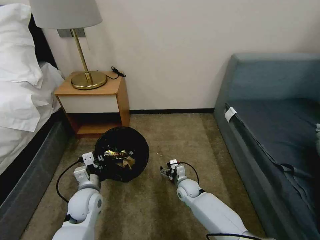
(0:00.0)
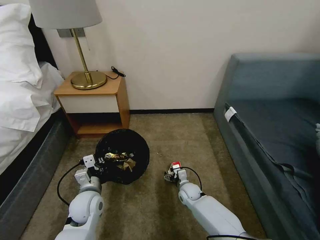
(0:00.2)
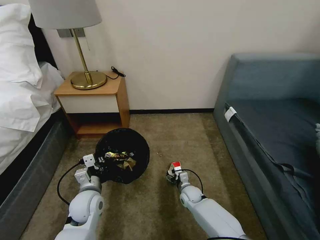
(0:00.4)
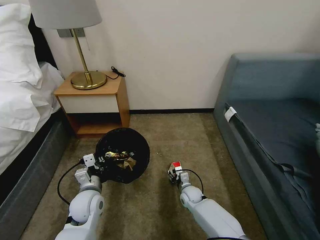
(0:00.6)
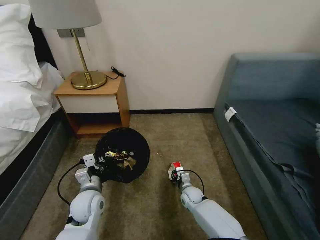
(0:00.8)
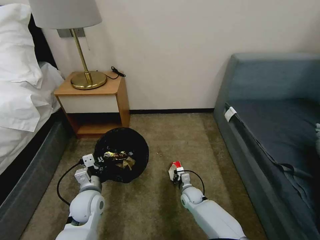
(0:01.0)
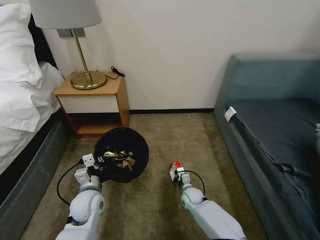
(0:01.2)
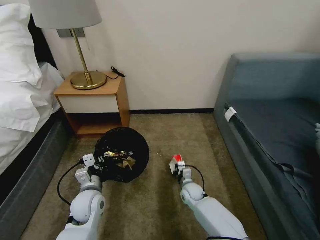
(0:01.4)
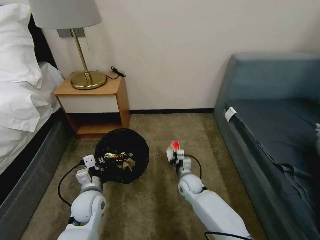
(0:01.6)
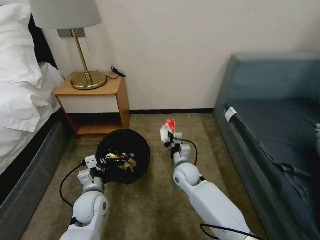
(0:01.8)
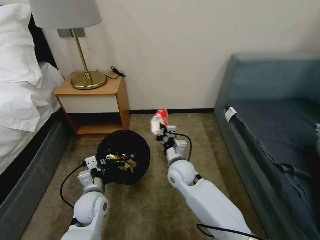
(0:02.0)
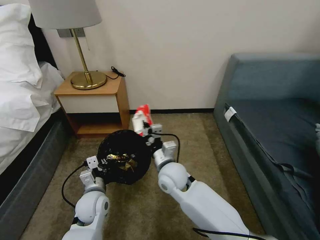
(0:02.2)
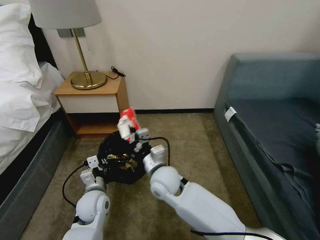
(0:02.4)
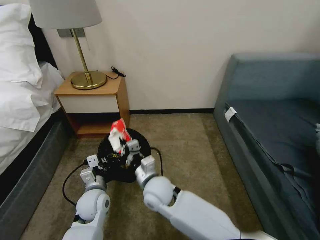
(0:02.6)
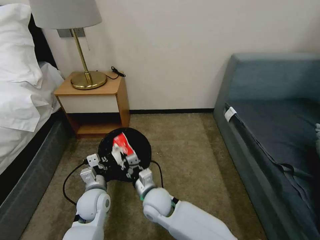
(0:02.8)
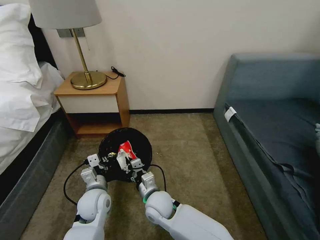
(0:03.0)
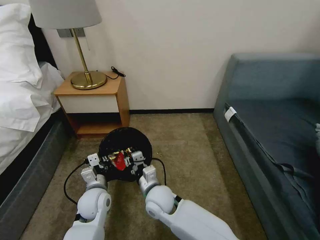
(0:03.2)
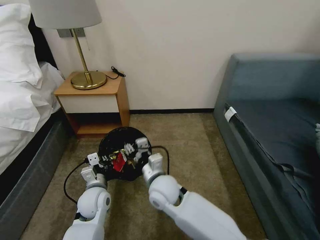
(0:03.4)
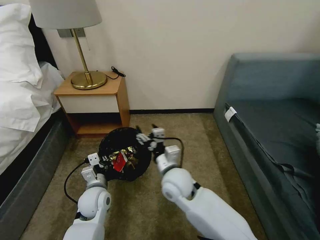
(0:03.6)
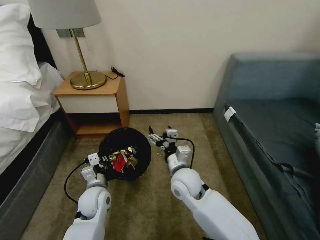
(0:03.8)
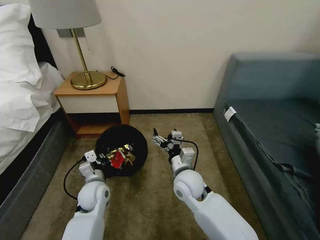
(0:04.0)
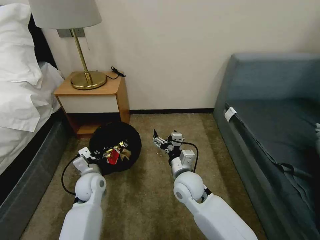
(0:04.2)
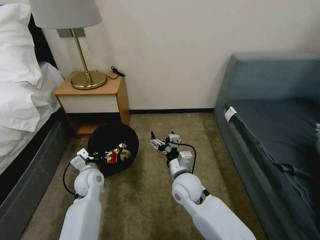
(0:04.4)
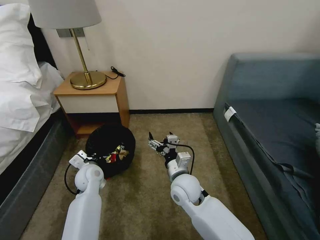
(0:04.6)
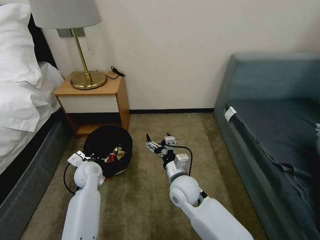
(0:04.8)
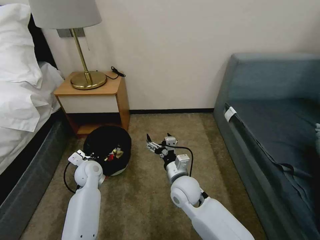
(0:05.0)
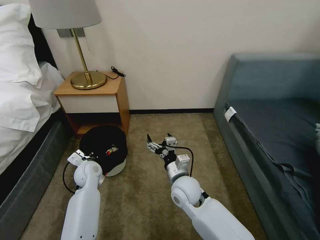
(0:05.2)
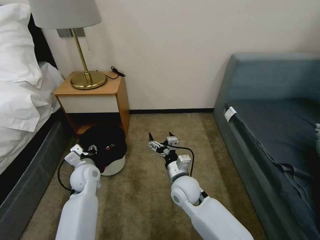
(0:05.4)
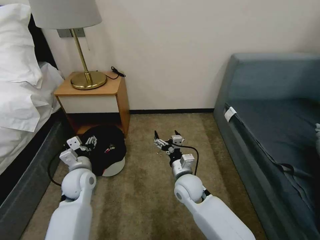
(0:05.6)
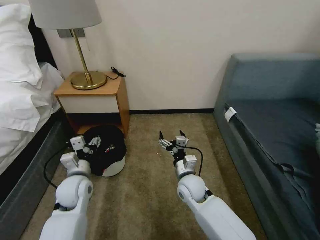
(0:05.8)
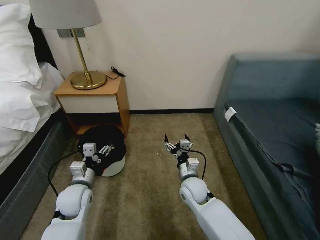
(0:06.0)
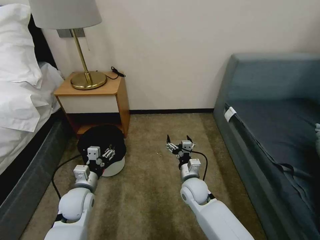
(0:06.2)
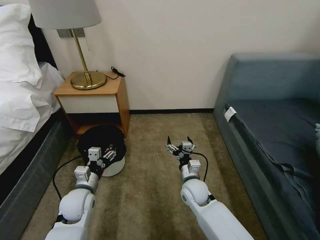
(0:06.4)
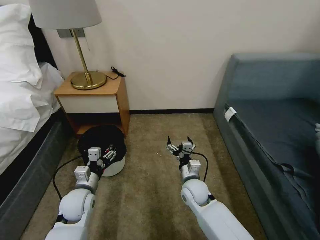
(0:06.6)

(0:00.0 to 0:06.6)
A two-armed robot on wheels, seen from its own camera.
Task of the whole recording: Pick up the trash bin, then pick up the garbage on the floor and place it into the trash bin.
0:00.0 - 0:01.6: The right gripper closes up.
0:01.6 - 0:03.2: The right gripper travels to the left, backward and upward by approximately 20 cm.
0:03.2 - 0:05.0: The right gripper shifts approximately 10 cm to the right, and opens its fingers, while the left gripper shifts approximately 10 cm forward and to the left.
0:05.0 - 0:06.6: The right gripper travels downward by roughly 5 cm; the left gripper travels backward by some 10 cm, and opens up.

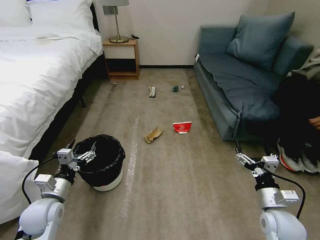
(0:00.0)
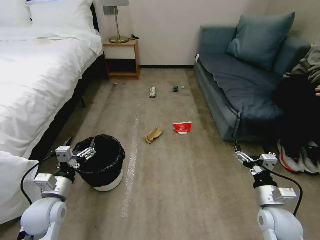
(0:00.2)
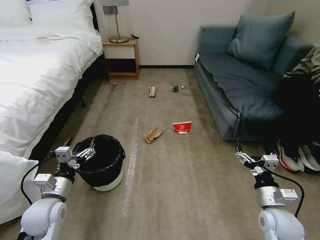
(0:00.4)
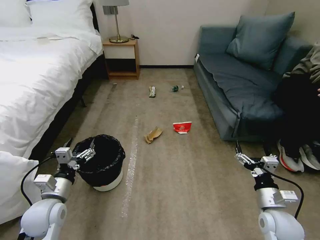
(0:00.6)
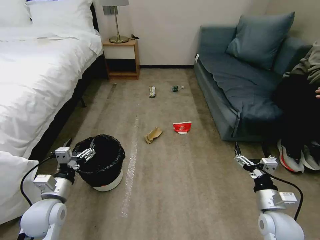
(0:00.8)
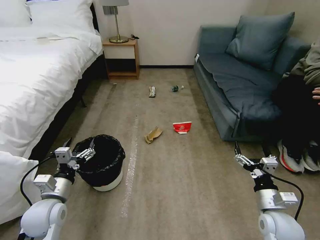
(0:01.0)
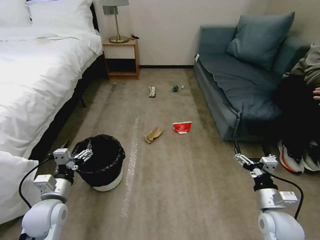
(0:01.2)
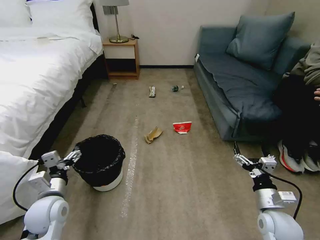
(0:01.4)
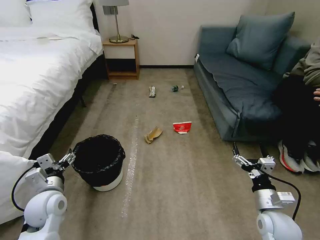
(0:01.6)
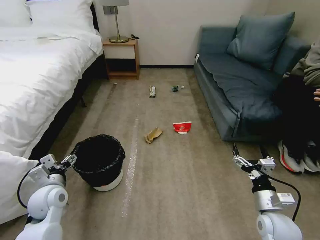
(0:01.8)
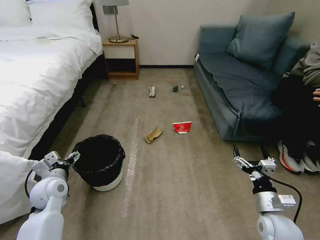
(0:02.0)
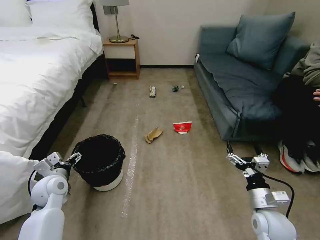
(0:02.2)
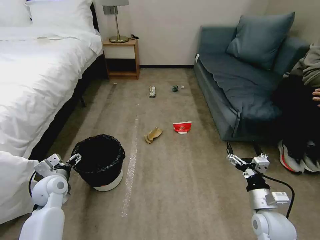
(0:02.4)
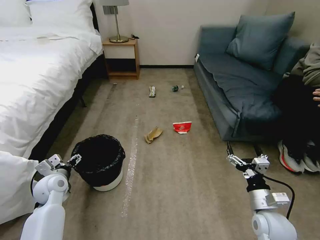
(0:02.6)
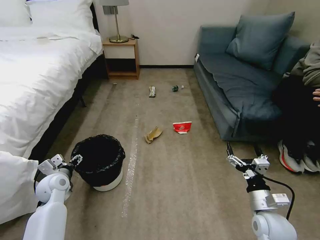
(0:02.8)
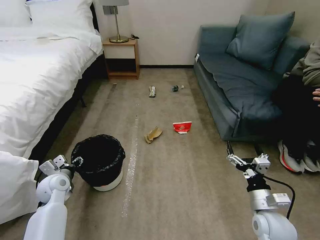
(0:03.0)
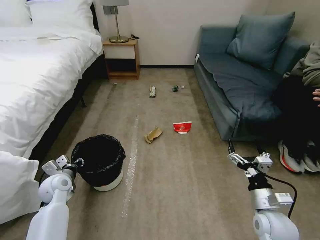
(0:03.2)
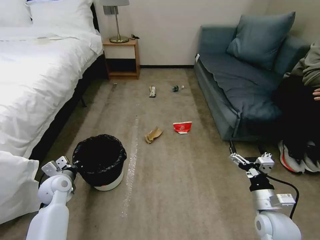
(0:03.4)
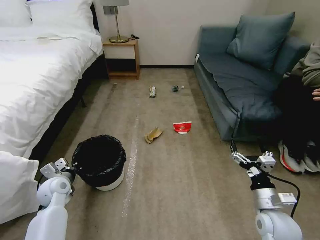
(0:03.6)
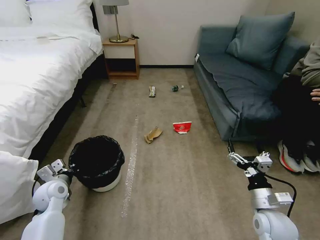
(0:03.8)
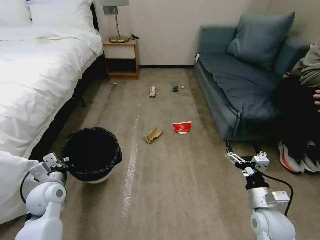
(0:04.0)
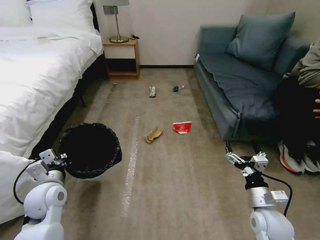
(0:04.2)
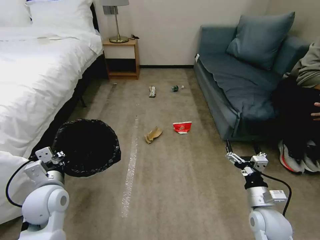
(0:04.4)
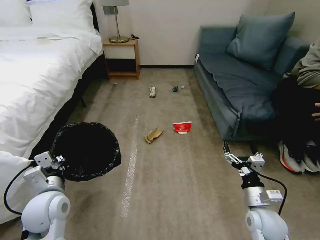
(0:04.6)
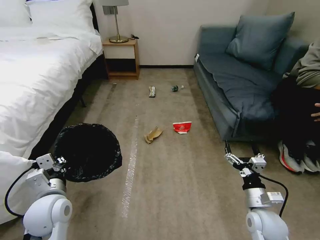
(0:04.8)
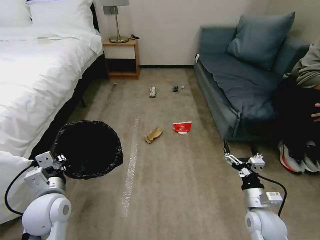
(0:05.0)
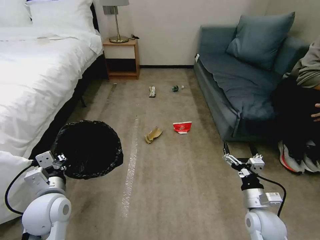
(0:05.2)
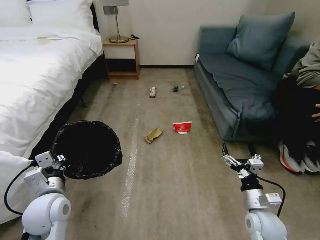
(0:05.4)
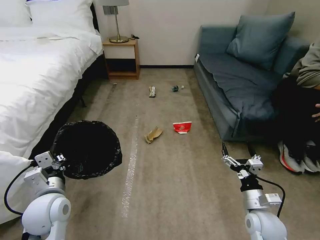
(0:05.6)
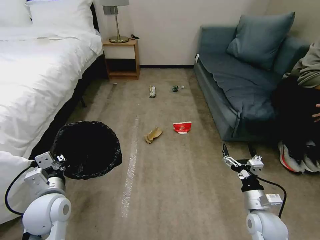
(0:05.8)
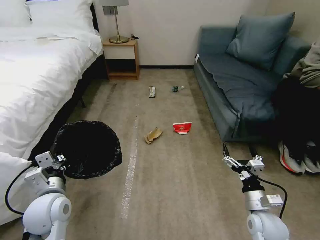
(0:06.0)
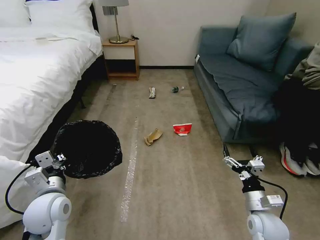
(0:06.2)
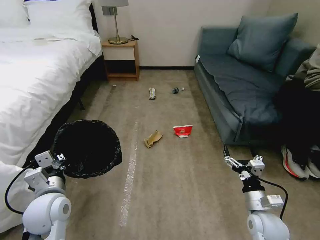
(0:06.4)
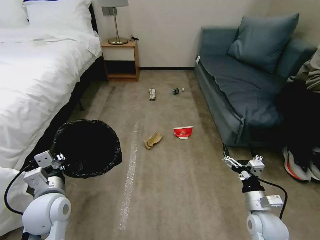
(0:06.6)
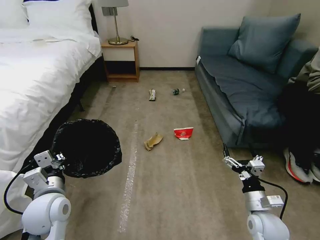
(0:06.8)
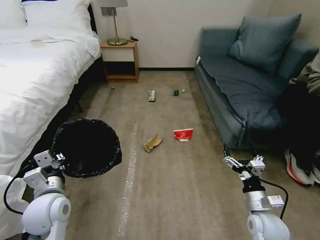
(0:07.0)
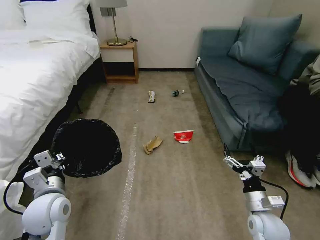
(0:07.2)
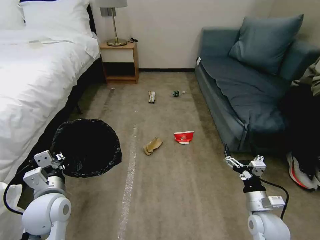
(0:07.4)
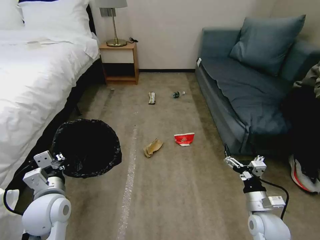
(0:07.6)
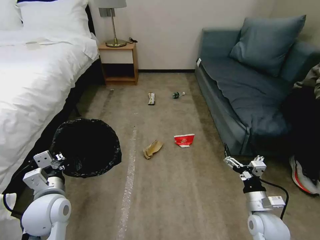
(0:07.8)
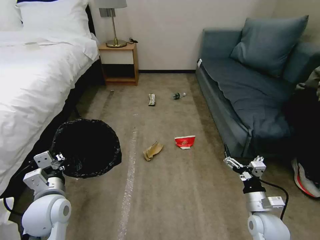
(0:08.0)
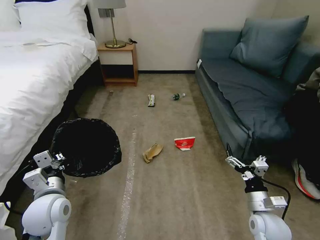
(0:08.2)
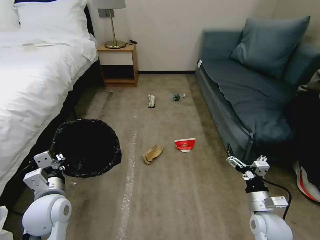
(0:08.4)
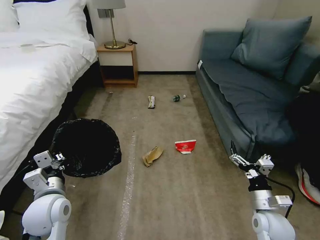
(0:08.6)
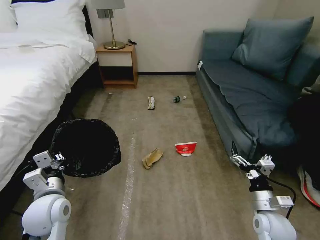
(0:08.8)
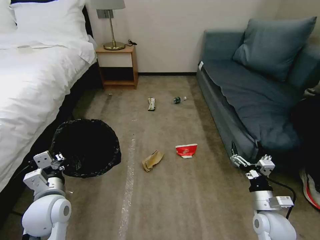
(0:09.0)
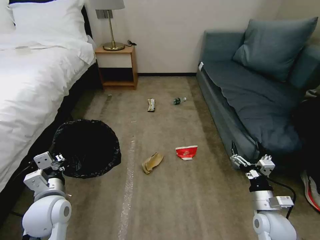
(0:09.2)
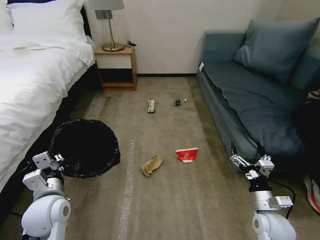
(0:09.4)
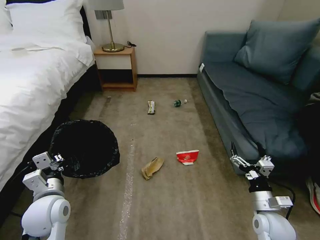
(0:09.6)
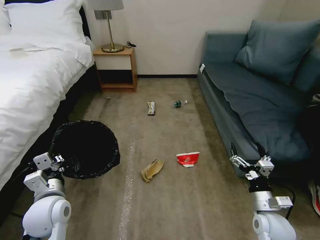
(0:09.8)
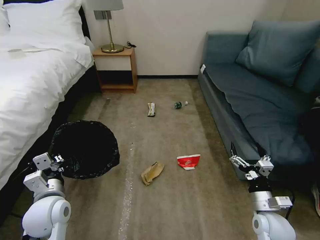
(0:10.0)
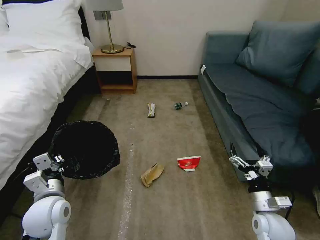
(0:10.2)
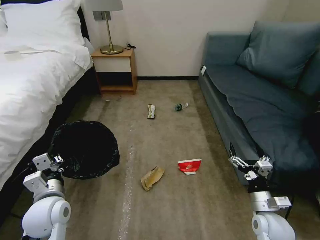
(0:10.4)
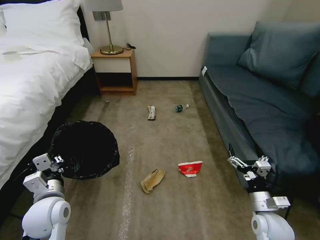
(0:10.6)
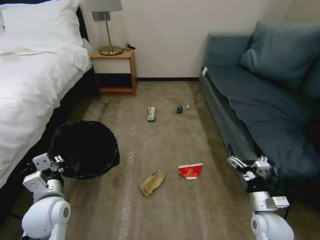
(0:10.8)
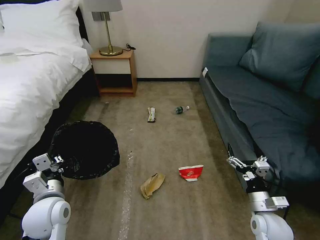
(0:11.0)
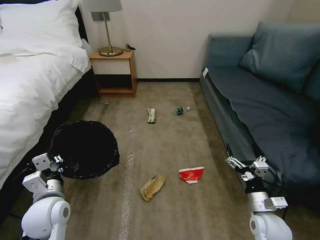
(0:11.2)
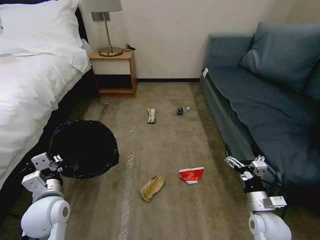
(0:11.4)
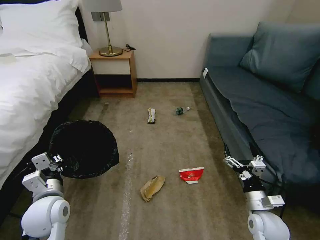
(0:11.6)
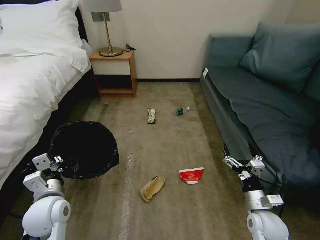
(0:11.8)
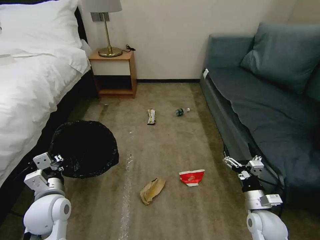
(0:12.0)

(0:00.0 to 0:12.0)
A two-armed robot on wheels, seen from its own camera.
Task of the whole recording: Pick up the trash bin, then pick up the garbage on the floor and place it into the trash bin.
0:01.6 - 0:03.0: The left gripper goes some 10 cm forward, and closes its fingers.
0:03.0 - 0:04.4: The left gripper shifts about 15 cm upward, backward and to the right, and closes.
0:04.4 - 0:06.0: There are only small adjustments of the grippers.
0:06.0 - 0:07.6: Both grippers stay put.
0:07.6 - 0:09.0: The grippers move only a little.
0:09.0 - 0:10.4: Both grippers stay put.
0:10.4 - 0:12.0: There are only small adjustments of the grippers.

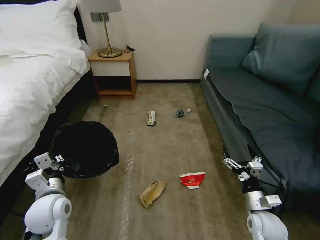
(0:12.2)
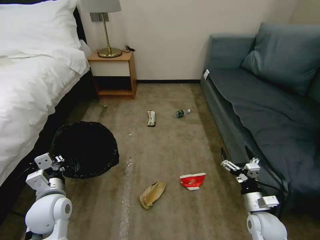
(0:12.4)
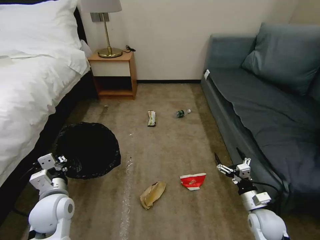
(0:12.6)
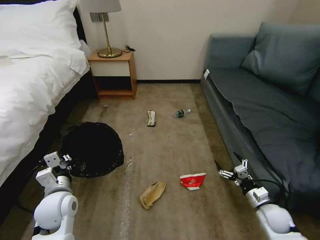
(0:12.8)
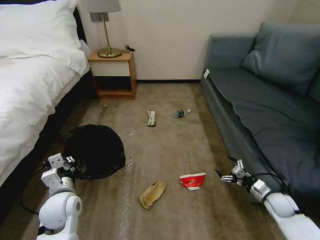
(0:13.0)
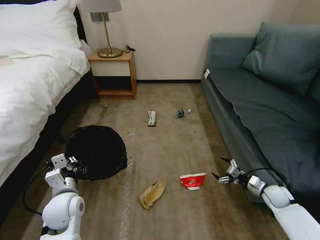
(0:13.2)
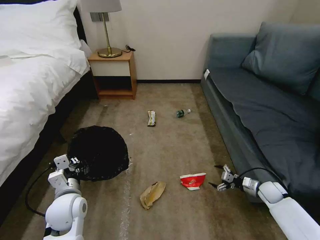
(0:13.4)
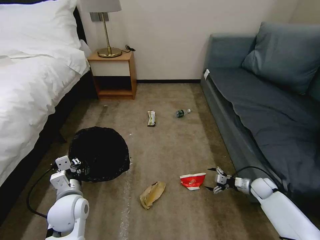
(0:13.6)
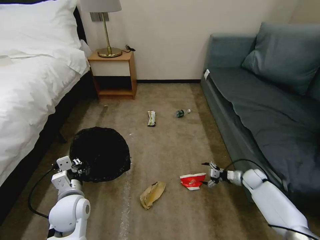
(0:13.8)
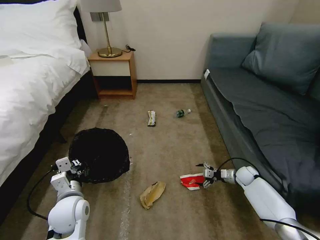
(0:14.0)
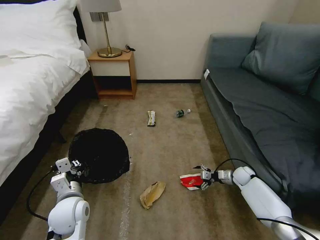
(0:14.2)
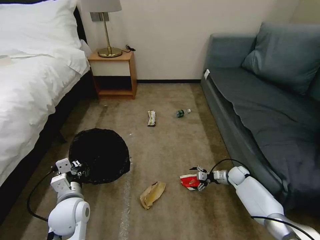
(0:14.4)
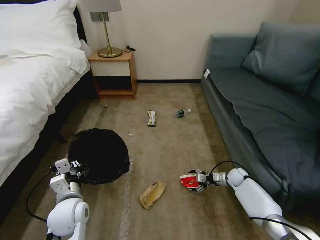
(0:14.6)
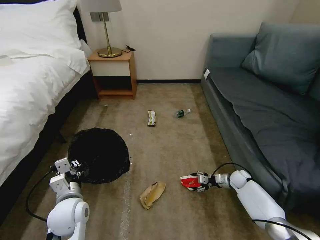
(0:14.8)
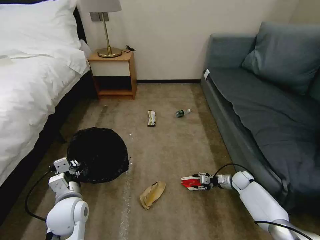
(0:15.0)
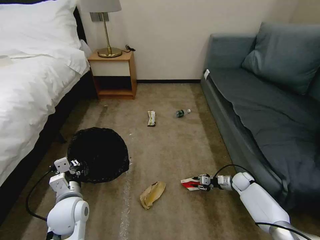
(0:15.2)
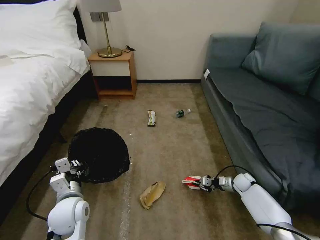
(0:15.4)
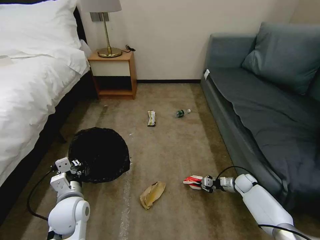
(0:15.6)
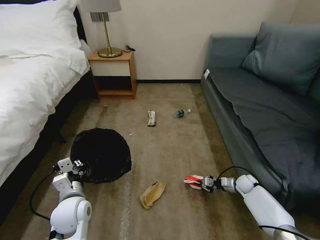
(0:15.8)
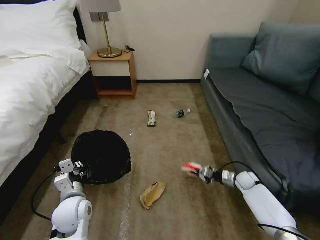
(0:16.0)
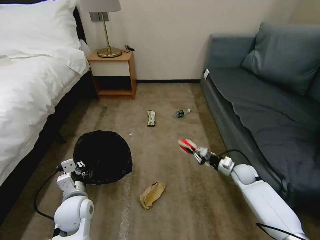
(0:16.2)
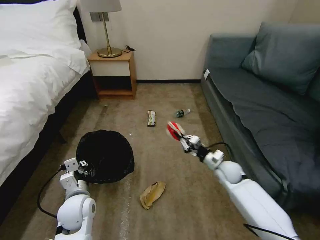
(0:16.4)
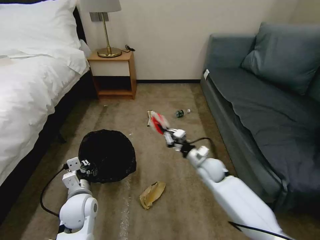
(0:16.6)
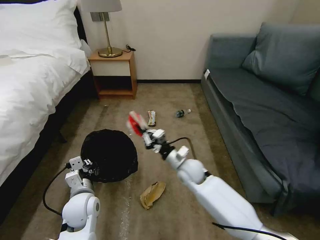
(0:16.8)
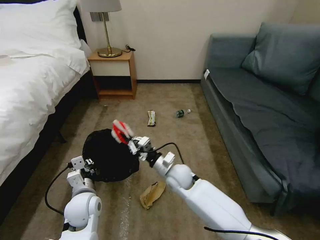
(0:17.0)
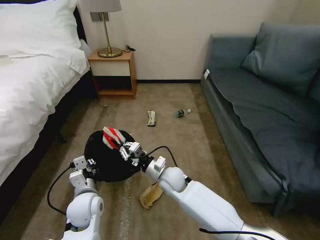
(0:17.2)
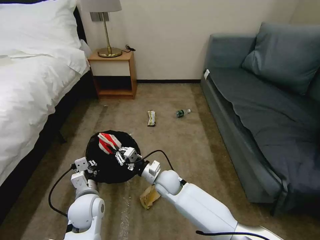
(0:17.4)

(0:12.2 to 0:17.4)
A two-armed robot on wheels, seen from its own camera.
Task of the whole recording: Pick up the trash bin, then pick up the garbage on the floor and place it into the trash bin.
0:12.2 - 0:14.0: The right gripper is displaced forward and downward by some 25 cm. Meanwhile the left gripper moves roughly 5 cm.
0:14.0 - 0:15.6: The right gripper closes up.
0:15.6 - 0:17.4: The right gripper shifts about 40 cm to the left.
